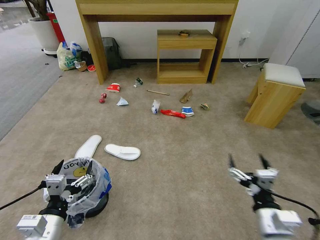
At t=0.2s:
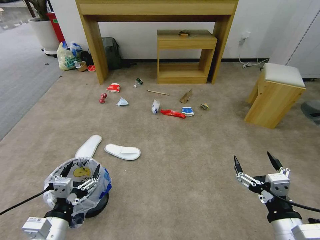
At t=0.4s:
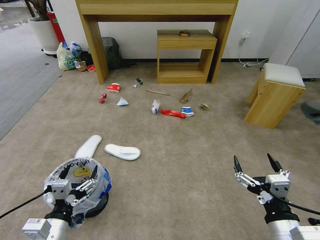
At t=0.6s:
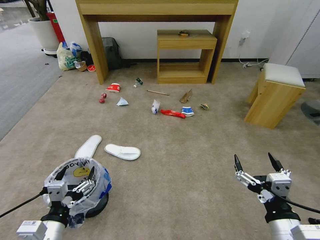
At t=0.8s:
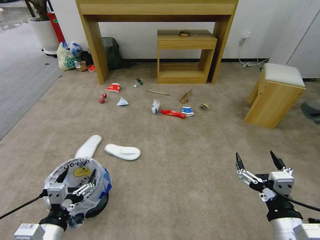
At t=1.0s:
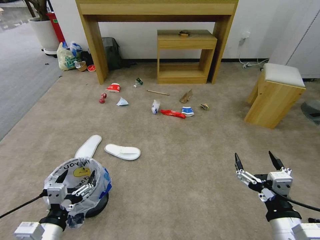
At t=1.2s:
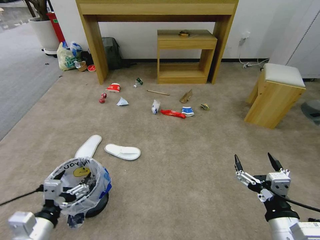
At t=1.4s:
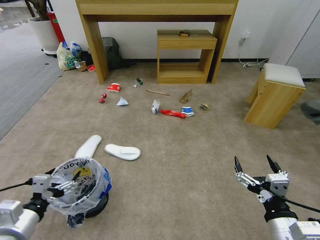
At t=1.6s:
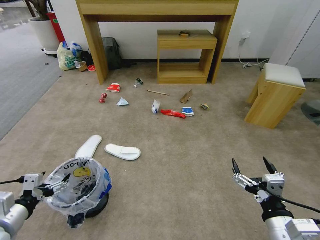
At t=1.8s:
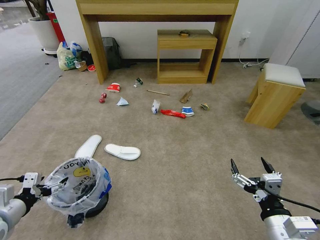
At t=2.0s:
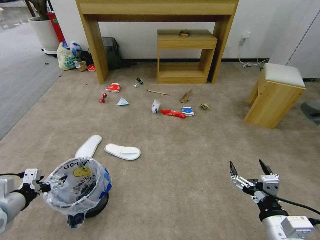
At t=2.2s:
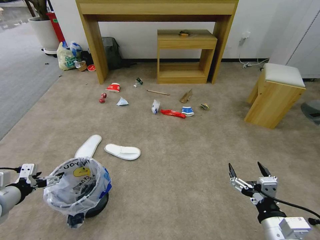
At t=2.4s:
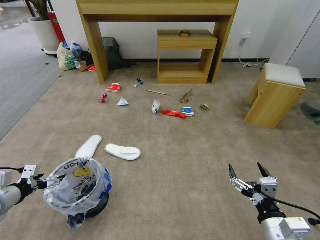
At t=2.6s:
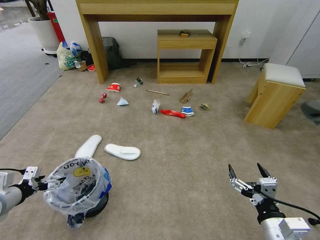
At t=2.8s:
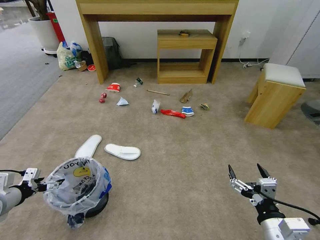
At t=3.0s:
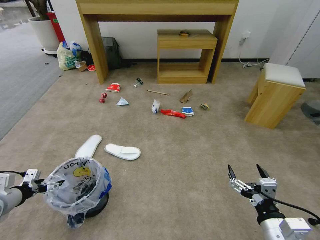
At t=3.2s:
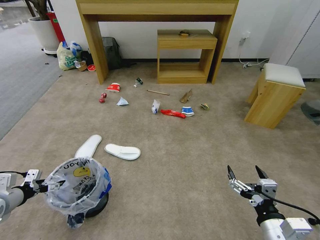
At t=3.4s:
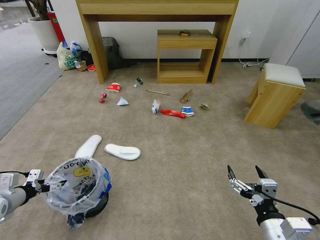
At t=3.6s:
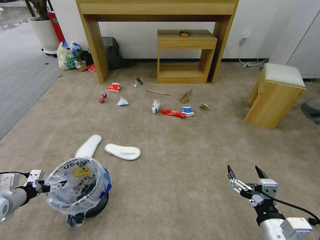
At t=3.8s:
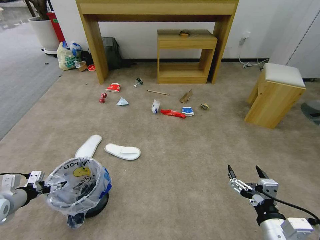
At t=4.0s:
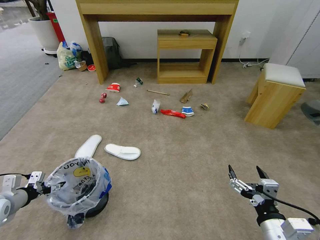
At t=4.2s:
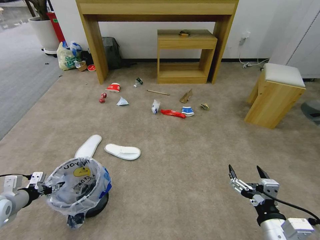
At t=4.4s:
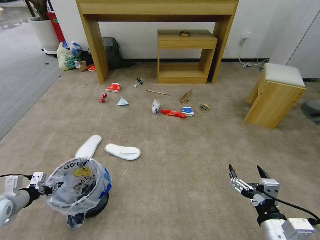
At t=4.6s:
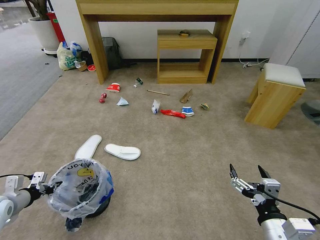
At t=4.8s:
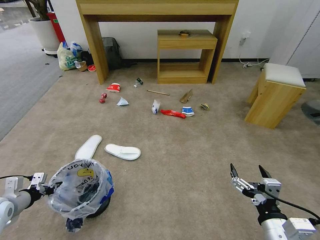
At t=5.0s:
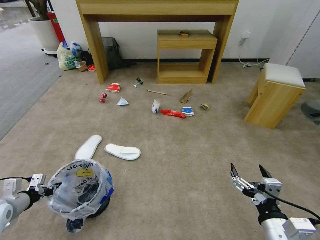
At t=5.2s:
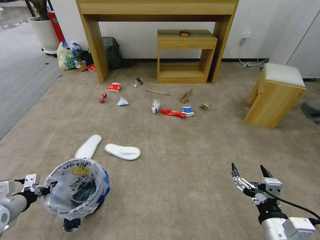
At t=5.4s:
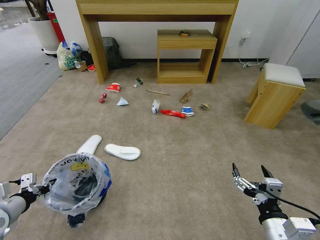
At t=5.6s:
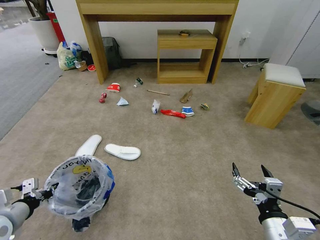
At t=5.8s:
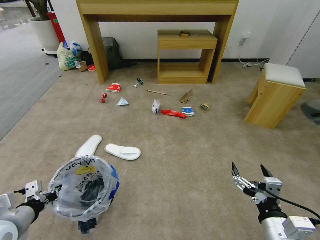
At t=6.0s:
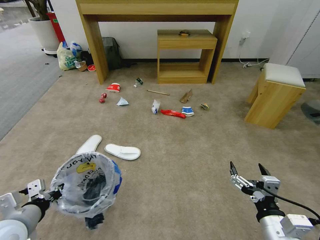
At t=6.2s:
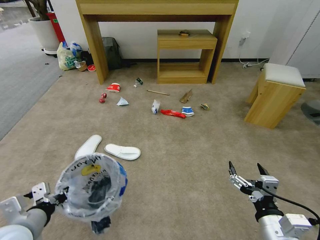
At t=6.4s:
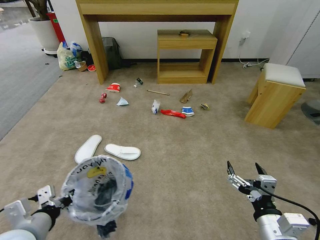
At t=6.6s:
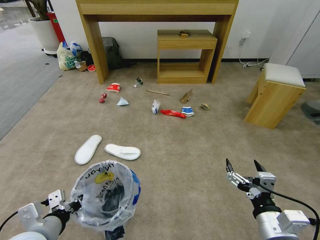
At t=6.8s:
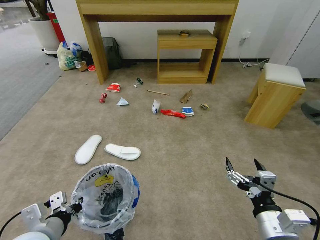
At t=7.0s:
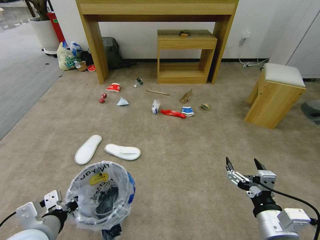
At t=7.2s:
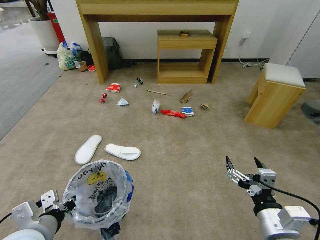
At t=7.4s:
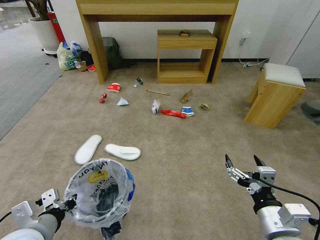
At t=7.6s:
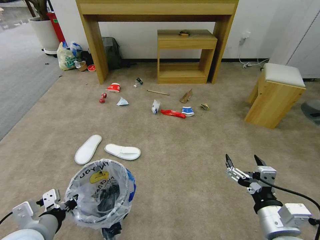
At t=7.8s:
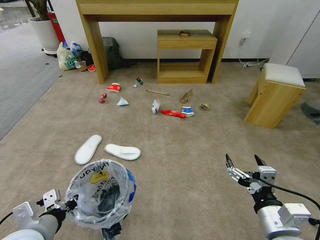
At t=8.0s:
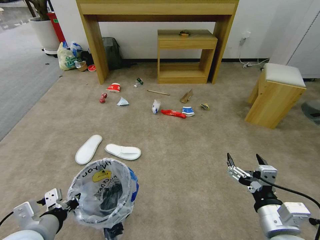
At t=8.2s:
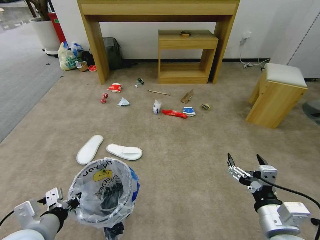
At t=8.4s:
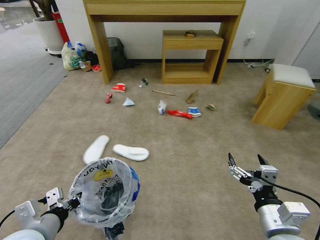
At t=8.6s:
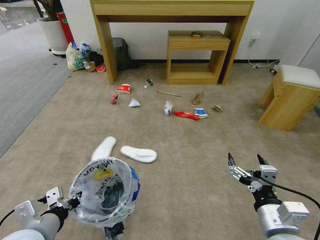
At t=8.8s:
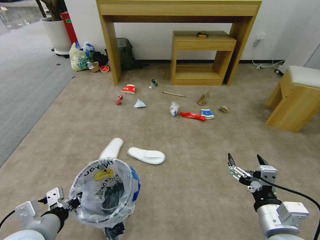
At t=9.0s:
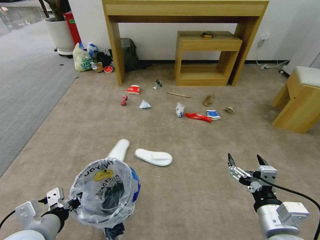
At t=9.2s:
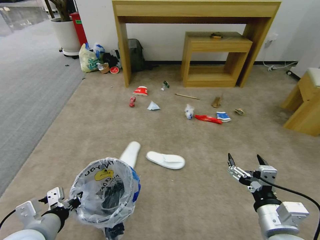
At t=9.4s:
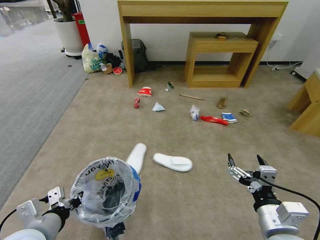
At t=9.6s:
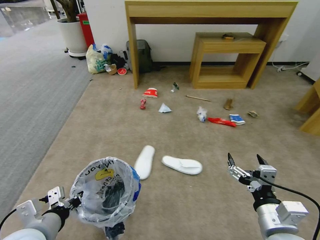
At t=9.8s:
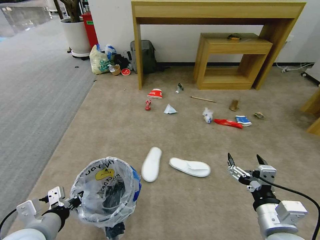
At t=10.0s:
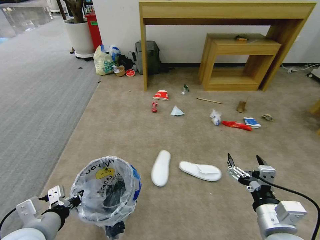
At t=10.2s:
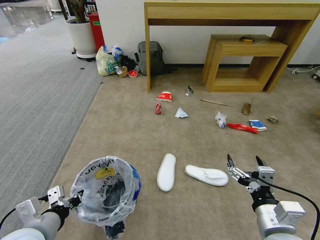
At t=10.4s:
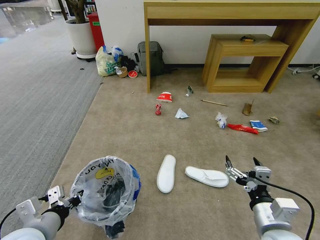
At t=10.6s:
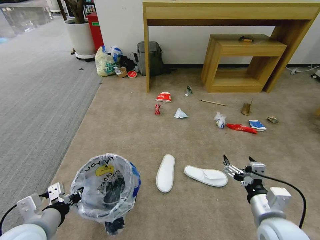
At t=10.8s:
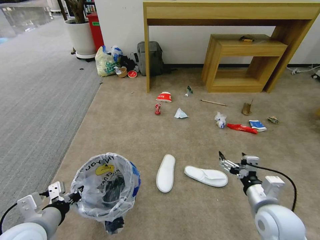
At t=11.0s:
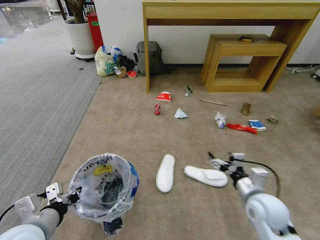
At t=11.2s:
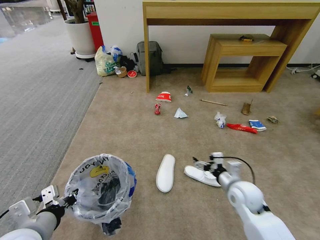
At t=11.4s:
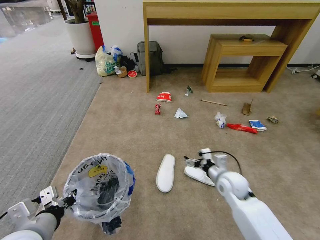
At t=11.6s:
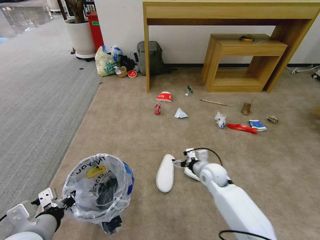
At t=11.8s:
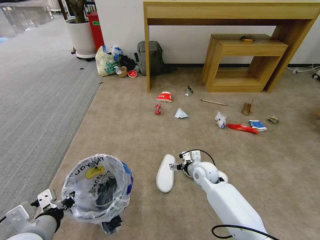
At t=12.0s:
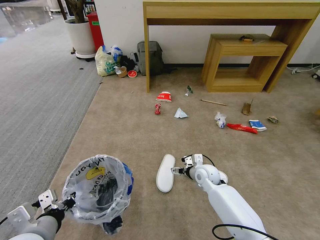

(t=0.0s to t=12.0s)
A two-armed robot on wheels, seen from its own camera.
Task of the whole recording: Pick up the trash bin and place the garbage on the floor into it.
t=1.6s - t=3.0s: The left gripper shifts approximately 15 cm to the left and forward.
t=3.0s - t=4.4s: The left gripper closes its fingers.
t=4.4s - t=6.0s: The left gripper travels to the right, backward and upward by approximately 15 cm.
t=6.0s - t=7.6s: The left gripper is displaced to the right by approximately 5 cm.
t=10.4s - t=12.0s: The right gripper goes about 30 cm forward and downward.

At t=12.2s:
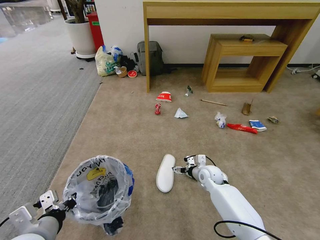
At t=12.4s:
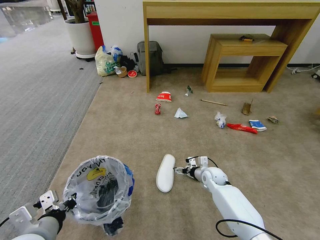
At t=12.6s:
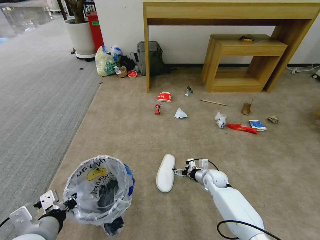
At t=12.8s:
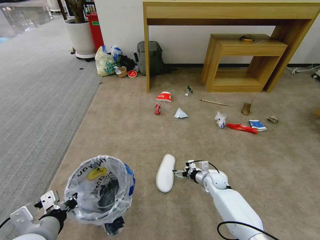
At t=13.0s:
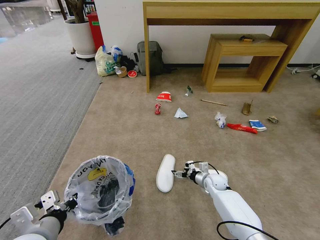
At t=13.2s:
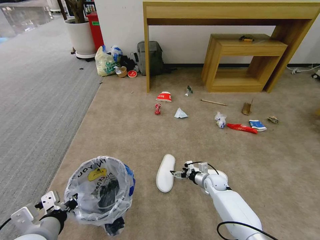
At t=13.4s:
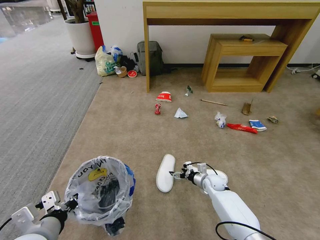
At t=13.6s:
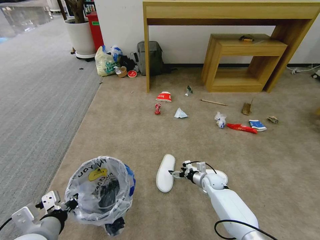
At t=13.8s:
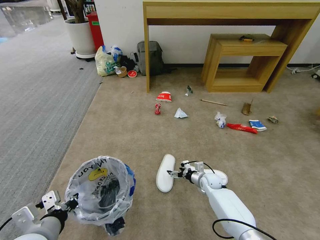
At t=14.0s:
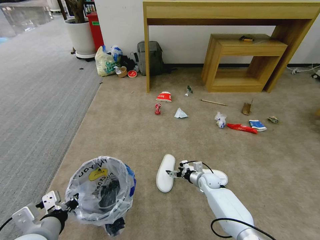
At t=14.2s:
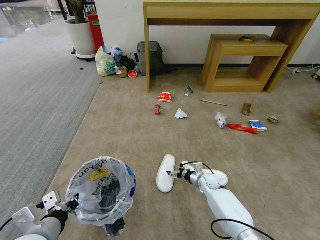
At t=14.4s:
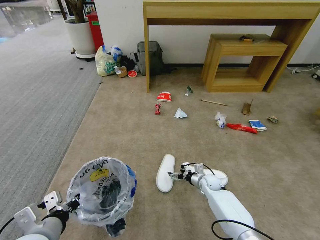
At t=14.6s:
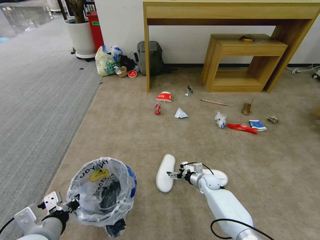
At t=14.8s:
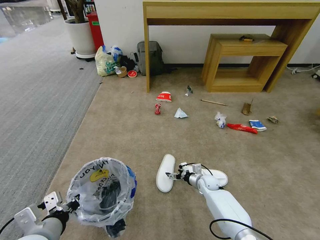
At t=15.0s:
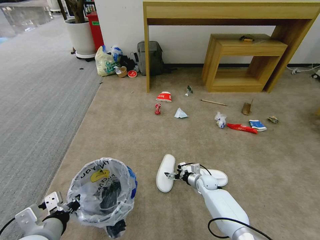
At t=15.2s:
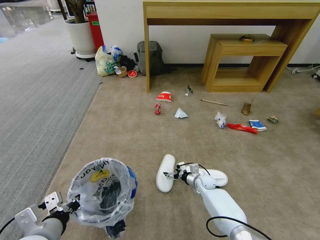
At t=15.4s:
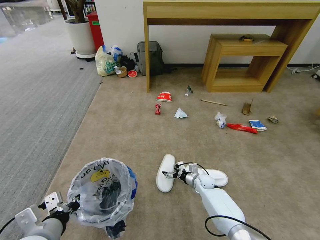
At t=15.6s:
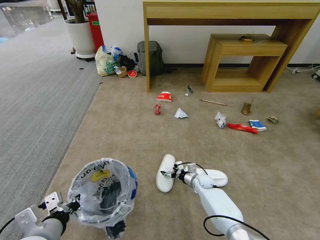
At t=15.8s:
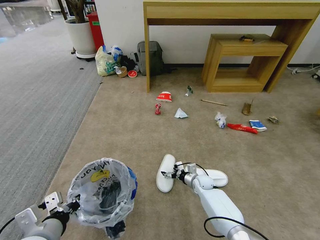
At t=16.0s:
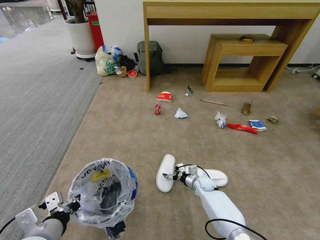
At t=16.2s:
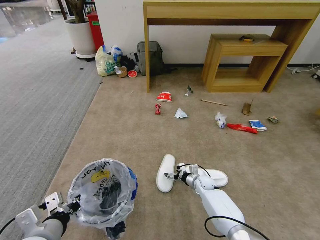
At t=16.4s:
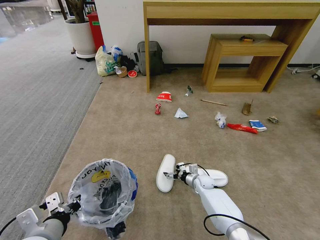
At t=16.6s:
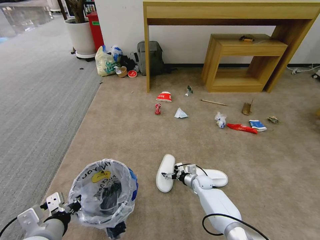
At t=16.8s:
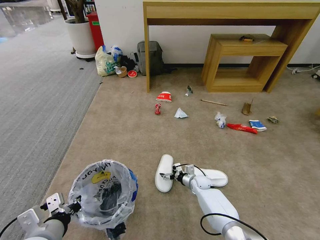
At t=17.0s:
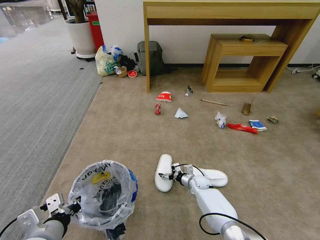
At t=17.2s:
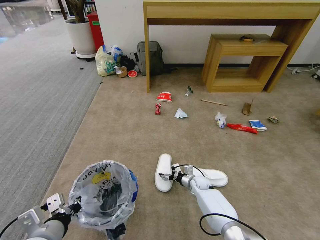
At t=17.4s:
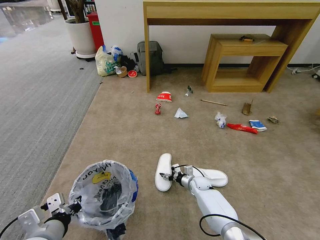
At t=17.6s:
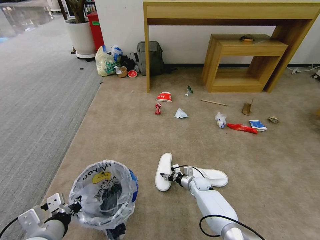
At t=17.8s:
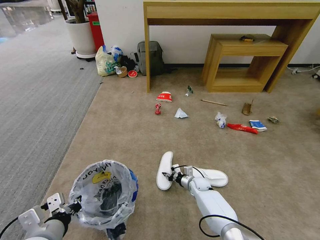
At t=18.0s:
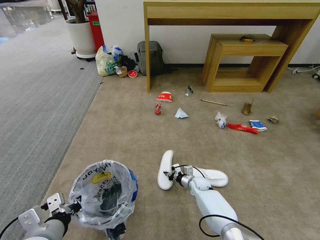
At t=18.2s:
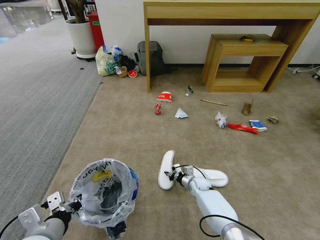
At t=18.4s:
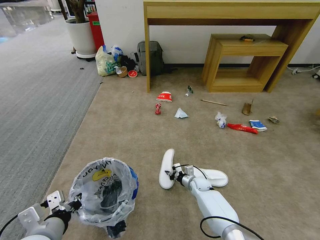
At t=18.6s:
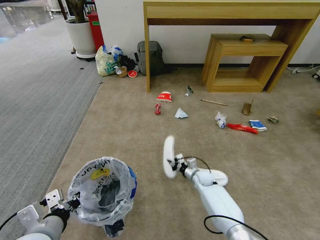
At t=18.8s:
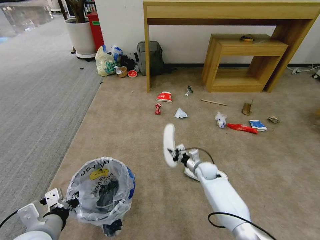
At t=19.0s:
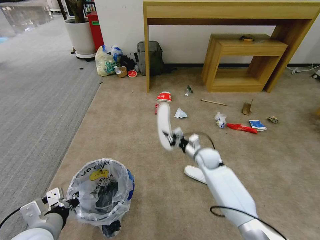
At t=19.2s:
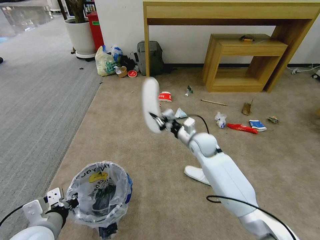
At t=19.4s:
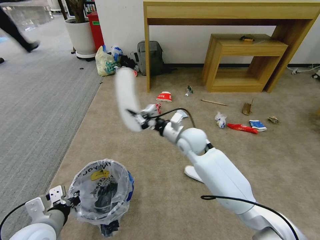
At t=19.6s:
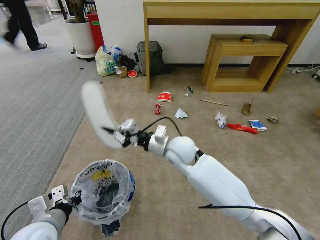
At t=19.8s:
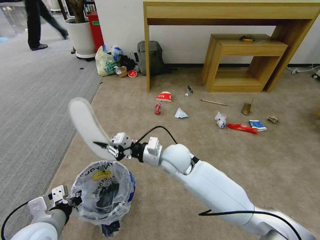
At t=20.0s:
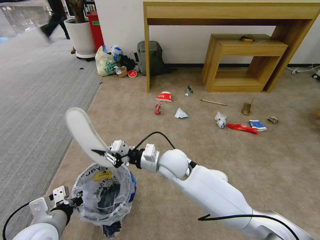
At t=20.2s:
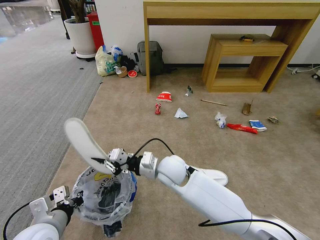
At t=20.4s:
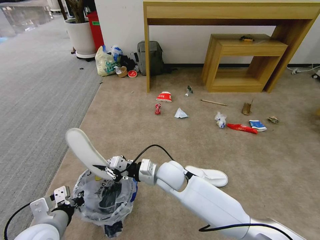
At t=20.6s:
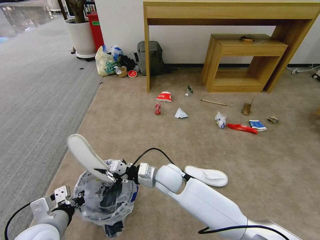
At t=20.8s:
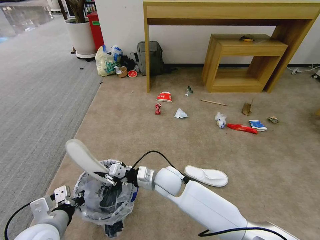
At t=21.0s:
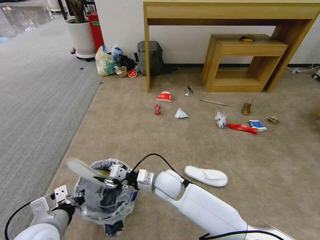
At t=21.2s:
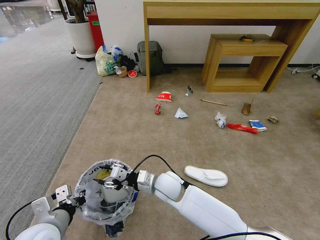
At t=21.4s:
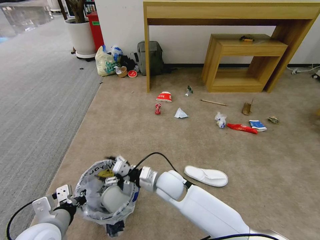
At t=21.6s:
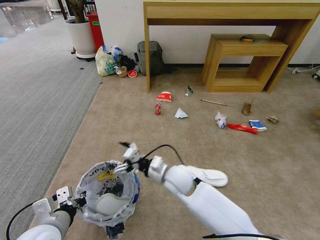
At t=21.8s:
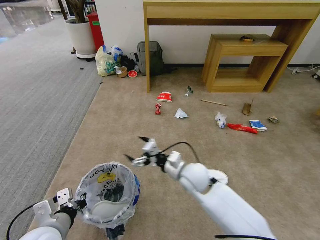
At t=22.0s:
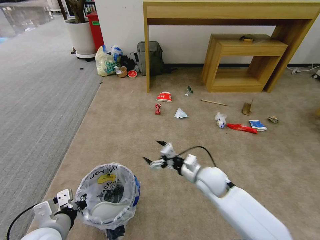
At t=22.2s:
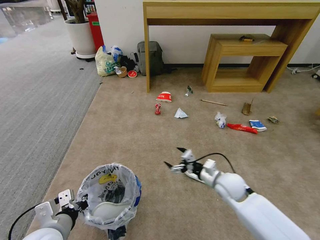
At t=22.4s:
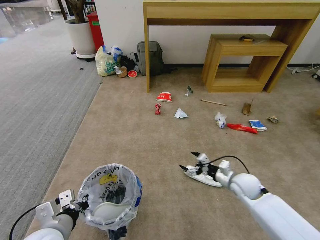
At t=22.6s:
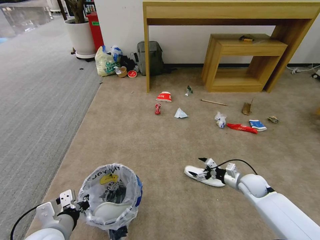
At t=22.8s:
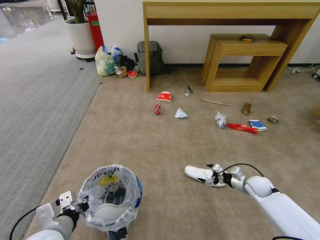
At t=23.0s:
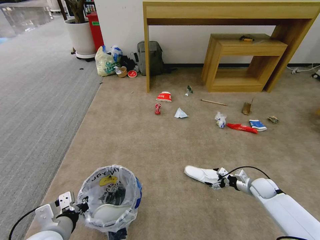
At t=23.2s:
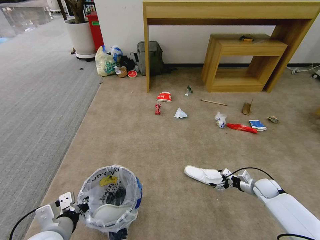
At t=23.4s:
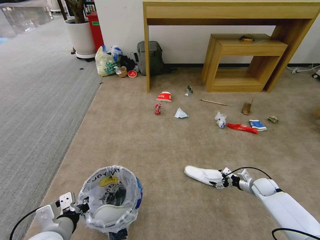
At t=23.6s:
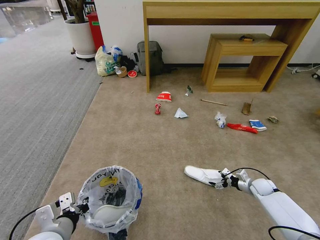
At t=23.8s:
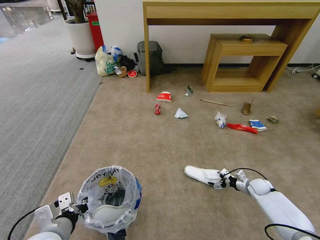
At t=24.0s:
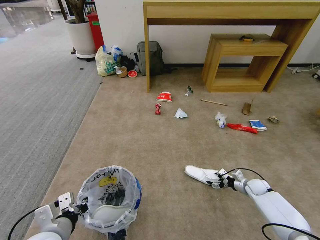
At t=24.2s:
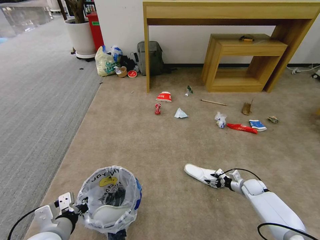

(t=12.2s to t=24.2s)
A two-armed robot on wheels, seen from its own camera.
Task of the whole recording: Pick up the trash bin and place the garbage on the floor into it.
t=12.2s - t=13.8s: The right gripper is displaced downward by approximately 10 cm.
t=13.8s - t=16.6s: There are only small adjustments of the grippers.
t=16.6s - t=18.2s: The right gripper closes up.
t=18.2s - t=19.8s: The right gripper travels upward and to the left by approximately 35 cm.
t=19.8s - t=21.2s: The right gripper moves downward, approximately 10 cm, and opens its fingers.
t=21.2s - t=22.6s: The right gripper shifts roughly 35 cm to the right, and opens up.
t=22.6s - t=24.2s: The right gripper heads downward and to the right, covering approximately 15 cm, and closes its fingers.
